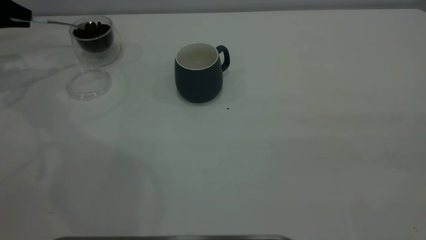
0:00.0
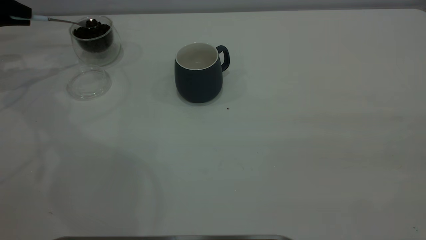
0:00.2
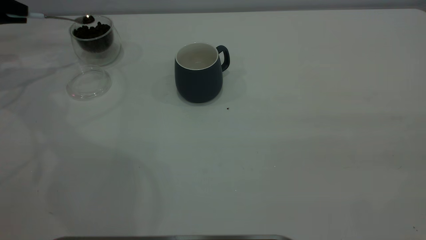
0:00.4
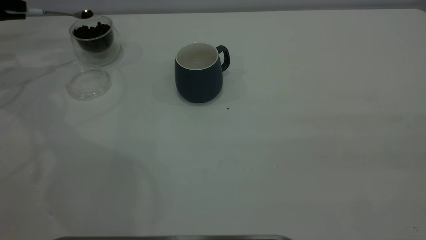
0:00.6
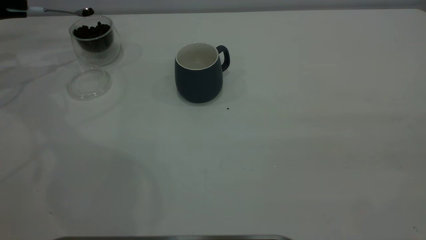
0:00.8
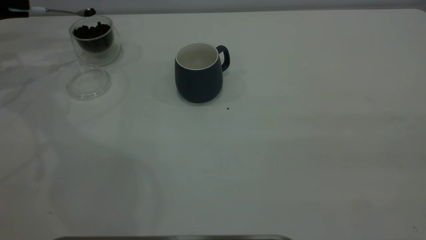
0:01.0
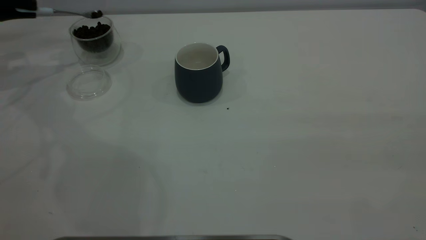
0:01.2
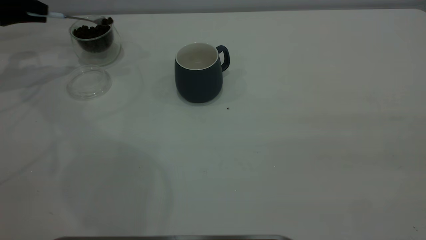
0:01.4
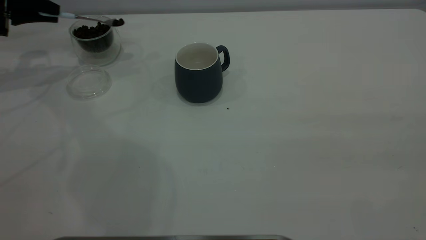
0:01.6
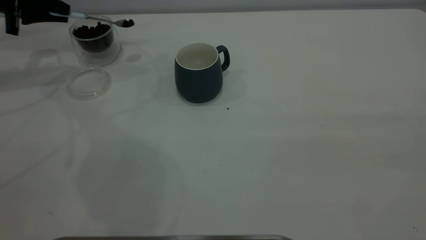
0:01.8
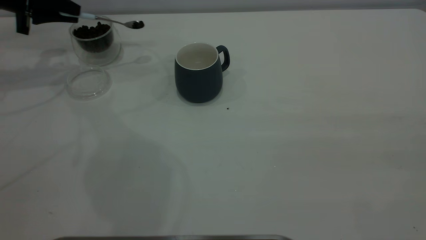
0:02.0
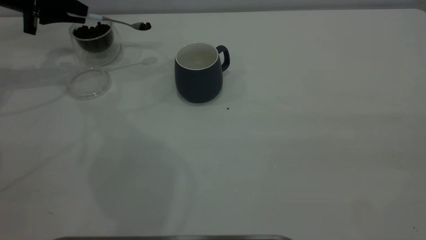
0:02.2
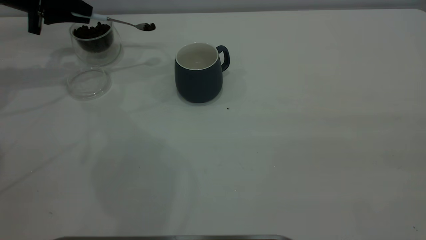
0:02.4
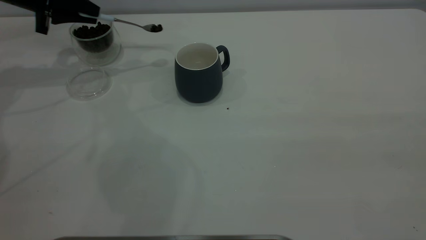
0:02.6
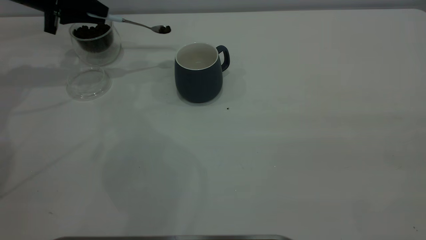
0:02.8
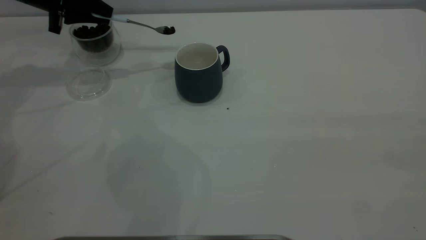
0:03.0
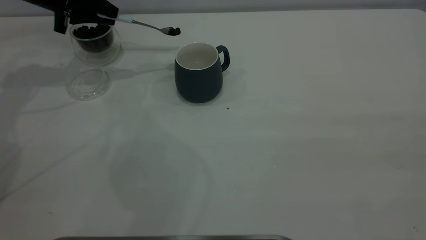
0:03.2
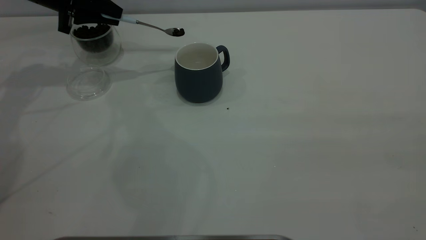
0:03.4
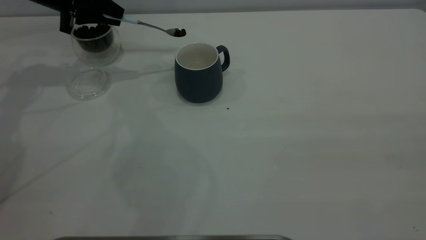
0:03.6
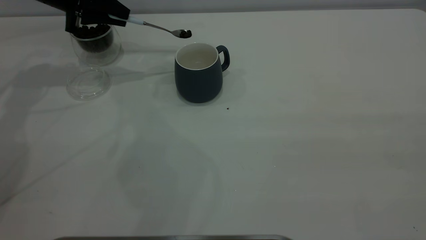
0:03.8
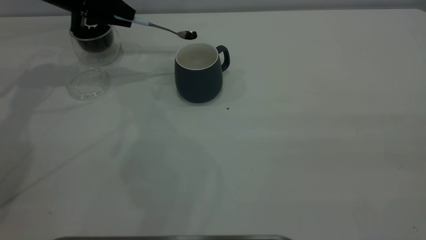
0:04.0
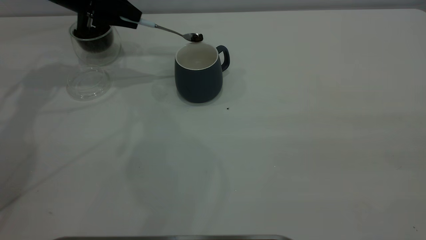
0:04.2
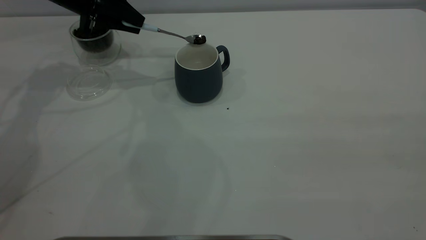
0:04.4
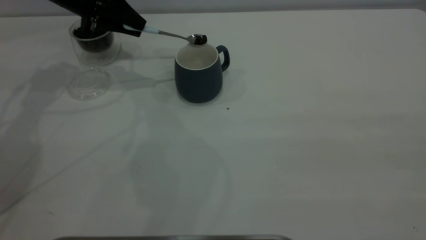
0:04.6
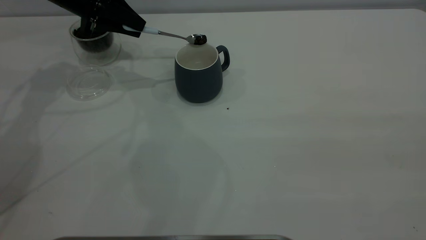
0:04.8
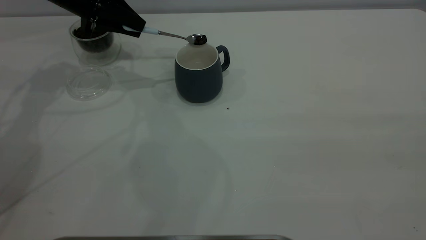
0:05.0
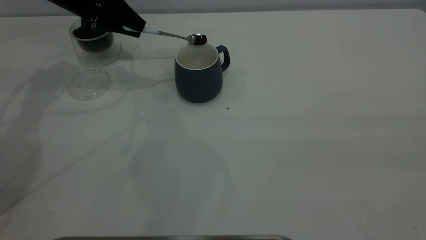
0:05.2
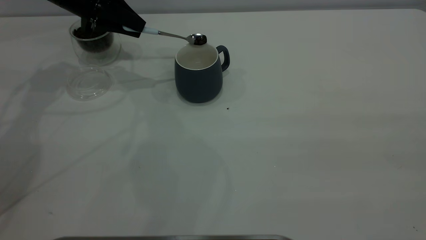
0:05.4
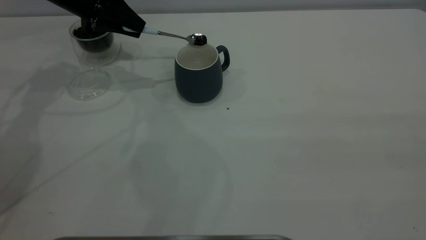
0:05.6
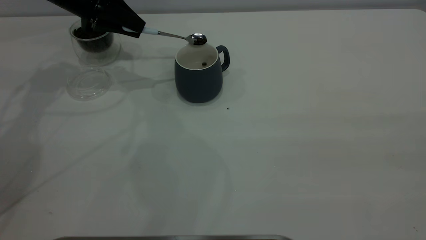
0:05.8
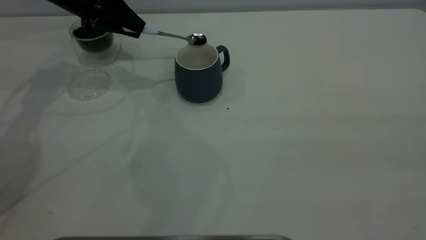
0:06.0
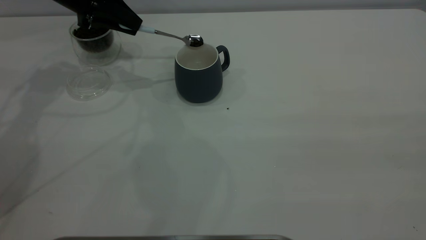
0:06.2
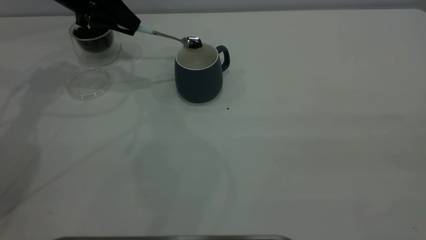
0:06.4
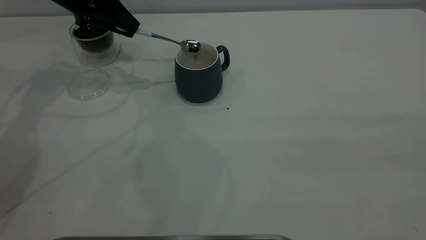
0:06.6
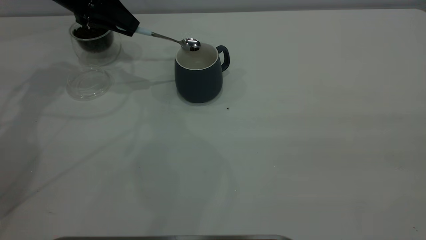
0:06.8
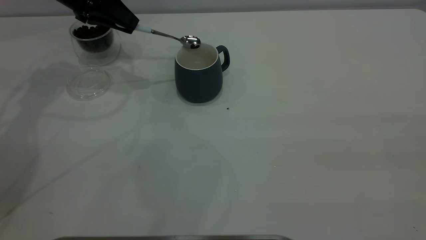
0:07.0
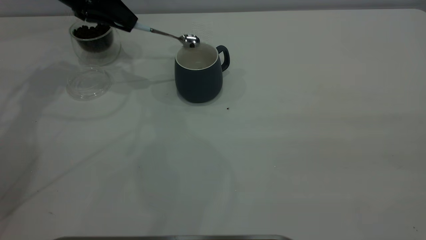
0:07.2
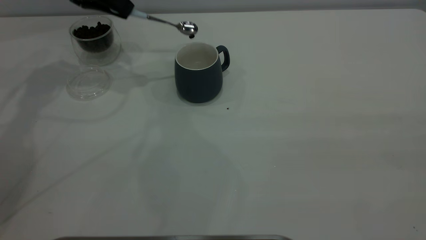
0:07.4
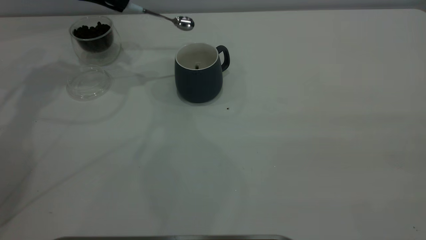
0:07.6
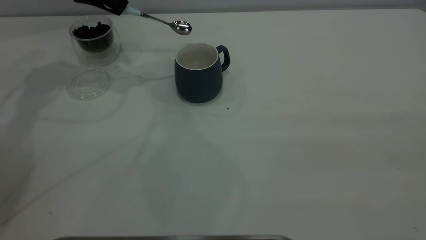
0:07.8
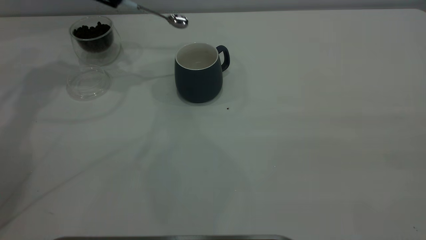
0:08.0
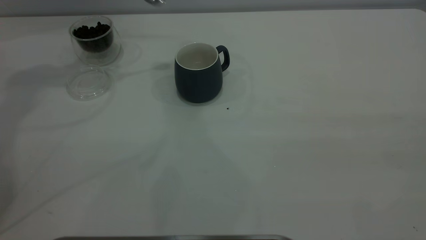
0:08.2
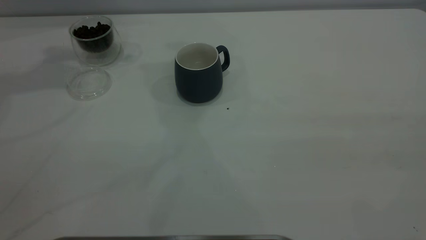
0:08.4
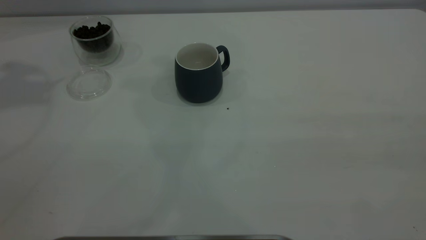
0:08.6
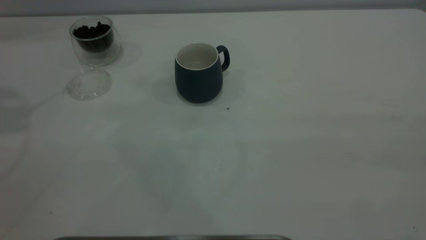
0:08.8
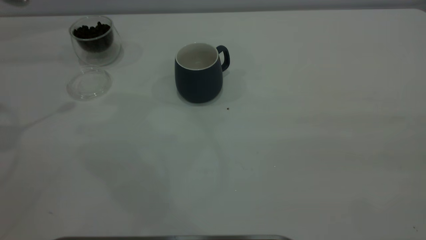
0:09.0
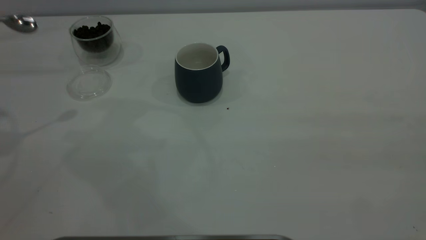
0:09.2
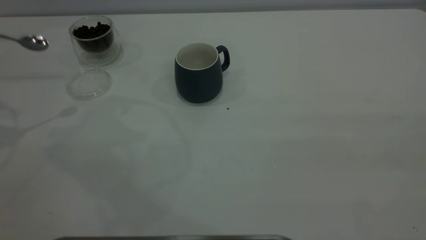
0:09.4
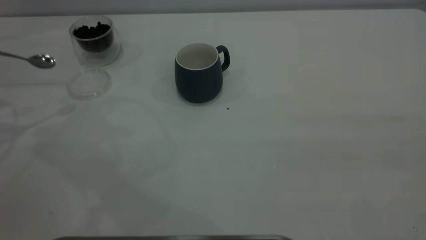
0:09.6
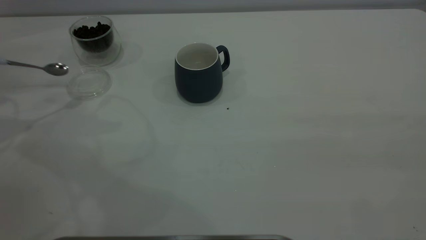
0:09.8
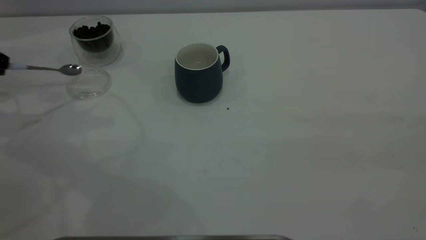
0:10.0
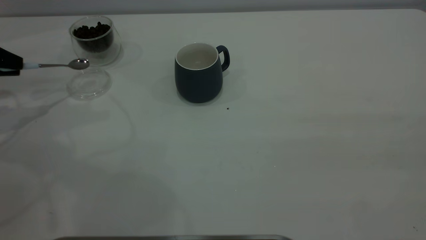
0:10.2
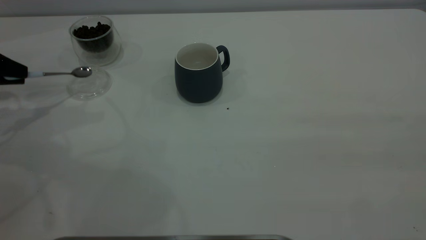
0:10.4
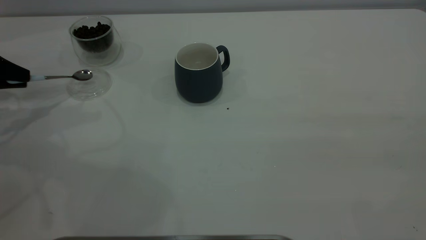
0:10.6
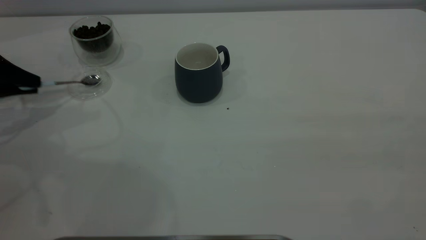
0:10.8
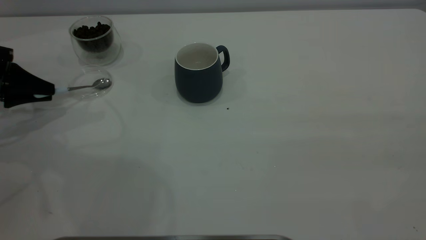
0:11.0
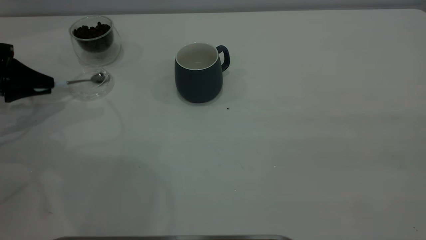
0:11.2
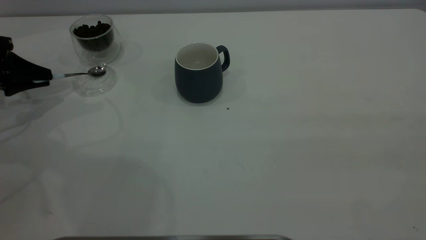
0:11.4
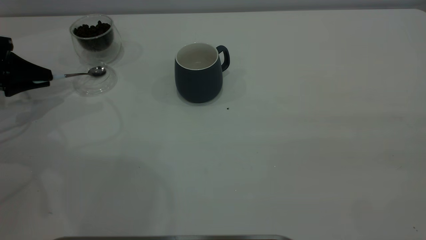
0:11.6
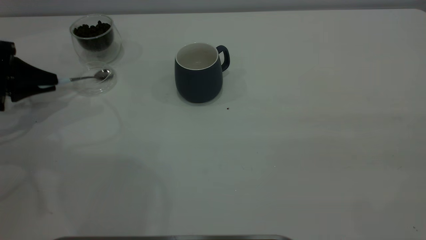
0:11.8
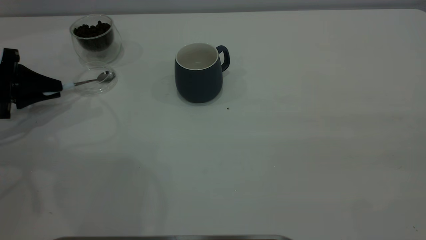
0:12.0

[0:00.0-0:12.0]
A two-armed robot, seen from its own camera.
Task of the whole recording: the right gripper place the grey cup in the center of the table, the left gripper take the blue spoon from the cup lid and scoop out the coffee beans from the coffee cup and put them into the grey cup, the left gripper put the spoon back into the cup lid.
Step, 0:00.0 to 0:07.8: Scoop a spoonful of beans into the cup.
0:00.0 to 0:01.6: The left gripper goes roughly 5 cm to the right.
0:01.6 to 0:03.0: The left gripper shifts about 10 cm to the right.
0:03.0 to 0:04.4: The left gripper is displaced to the right by some 5 cm.
0:06.0 to 0:07.6: The left gripper heads upward, covering approximately 5 cm.
0:07.6 to 0:09.0: The left gripper heads backward, to the left and upward, covering approximately 25 cm.
0:09.0 to 0:10.4: The left gripper travels downward by about 20 cm.
0:10.4 to 0:12.0: The left gripper heads downward, covering some 5 cm.

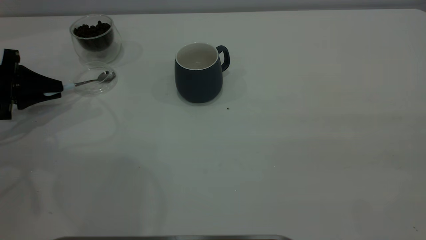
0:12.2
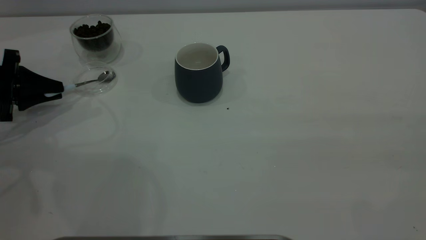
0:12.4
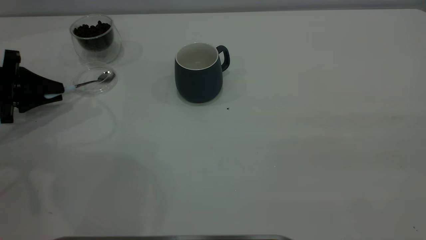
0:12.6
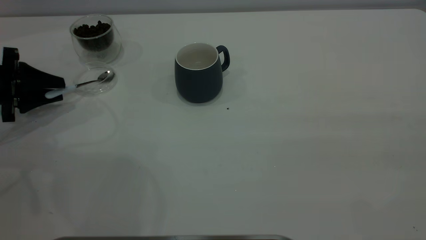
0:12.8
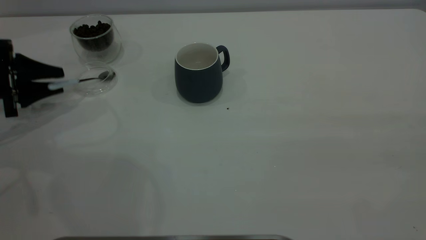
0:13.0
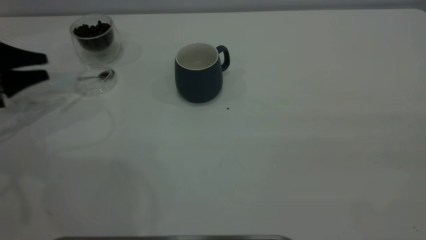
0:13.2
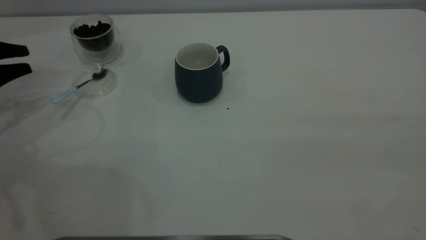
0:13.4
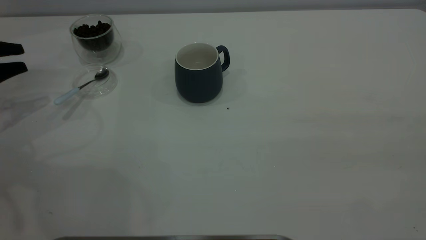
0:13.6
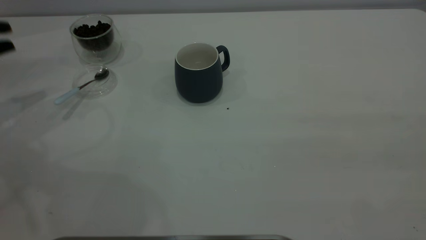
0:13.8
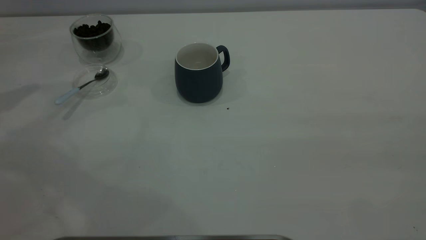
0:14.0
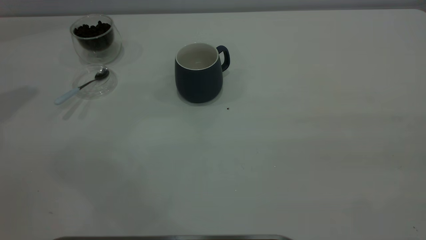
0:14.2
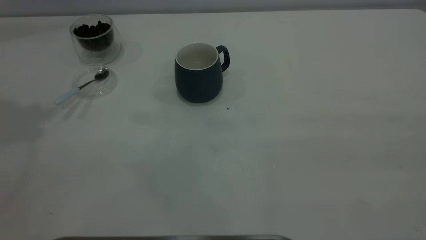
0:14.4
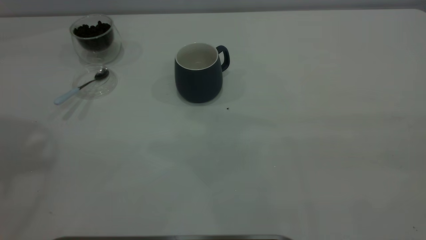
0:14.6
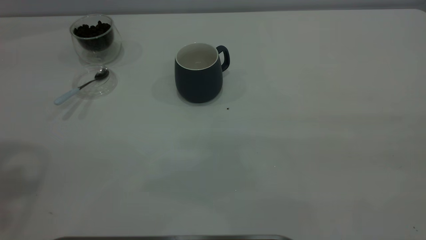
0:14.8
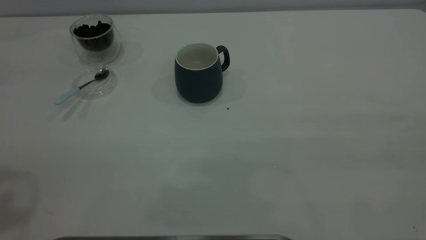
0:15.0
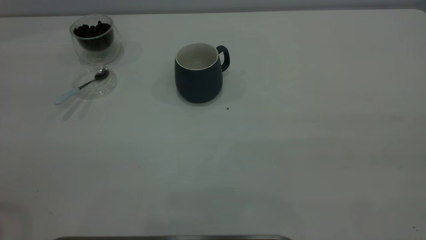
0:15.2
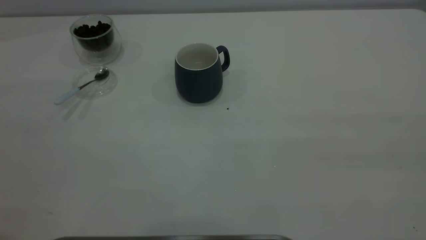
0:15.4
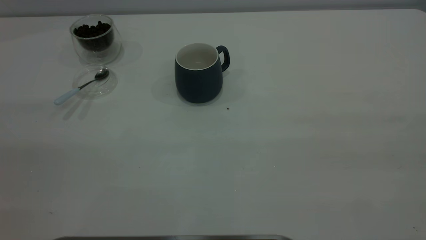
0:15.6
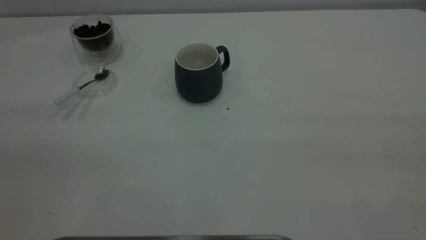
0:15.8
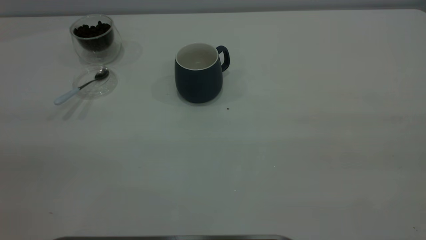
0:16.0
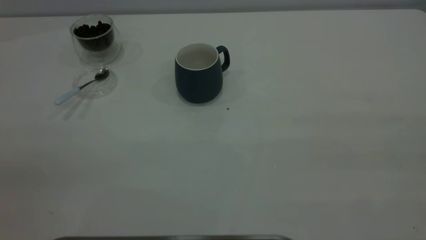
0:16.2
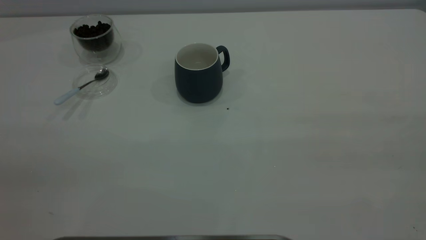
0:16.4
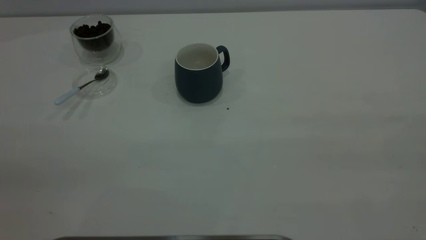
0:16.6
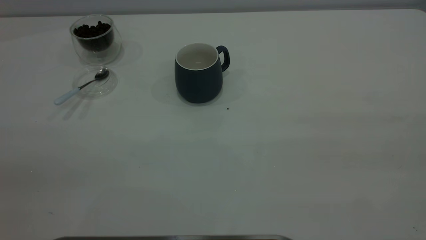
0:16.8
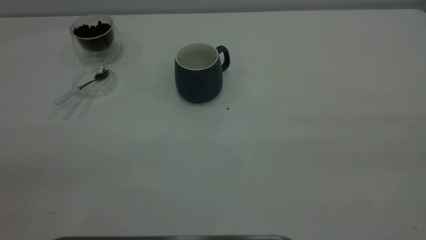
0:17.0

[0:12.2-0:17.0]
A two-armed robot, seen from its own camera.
Task of the whole recording: the right gripper place the grey cup in the center of the table, the left gripper take the blue spoon from the cup lid and scoop out the coffee beans from the coffee cup and put them into the grey cup, the left gripper put the spoon back into the cup lid.
0:12.2 to 0:13.8: The left gripper shifts approximately 10 cm upward, and opens up.
